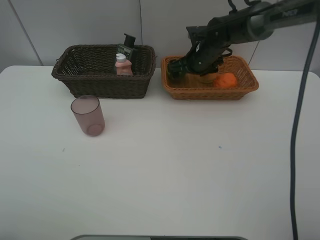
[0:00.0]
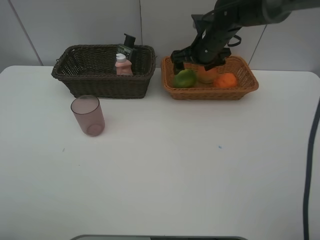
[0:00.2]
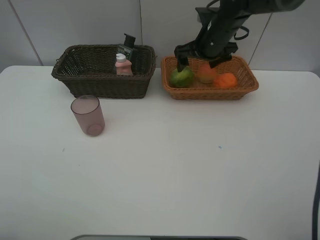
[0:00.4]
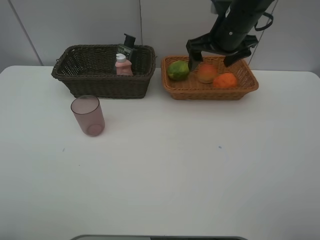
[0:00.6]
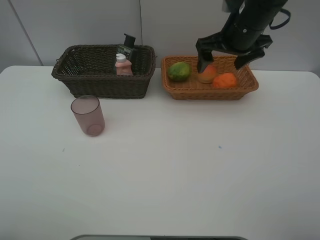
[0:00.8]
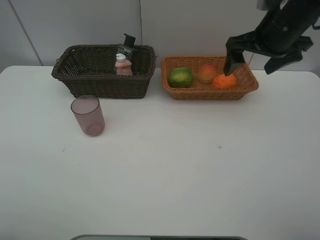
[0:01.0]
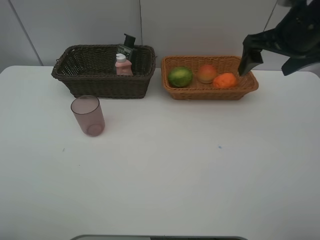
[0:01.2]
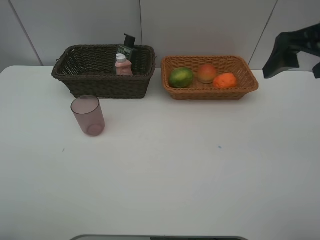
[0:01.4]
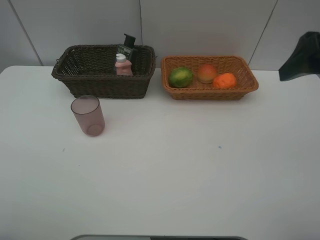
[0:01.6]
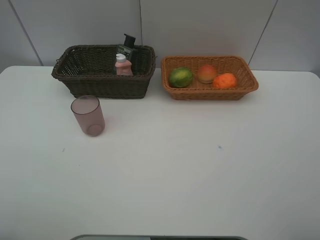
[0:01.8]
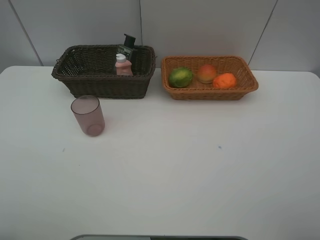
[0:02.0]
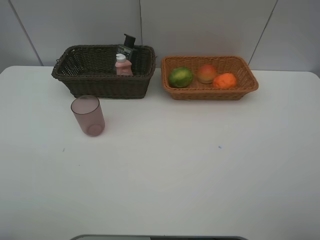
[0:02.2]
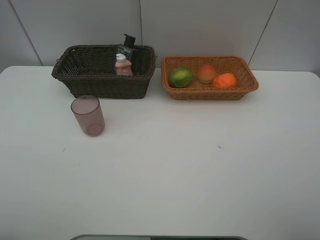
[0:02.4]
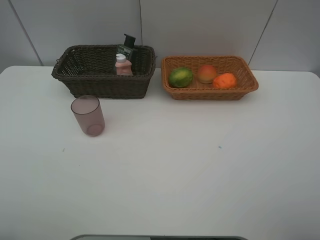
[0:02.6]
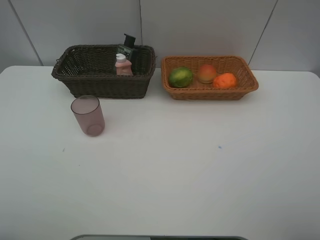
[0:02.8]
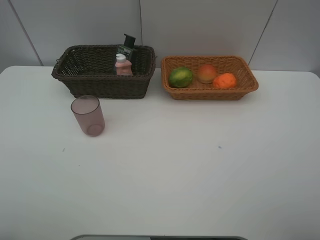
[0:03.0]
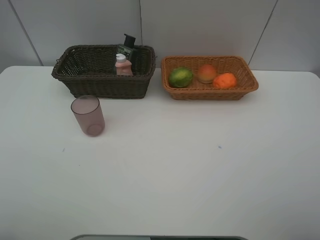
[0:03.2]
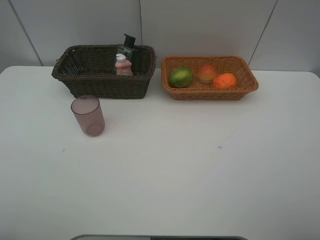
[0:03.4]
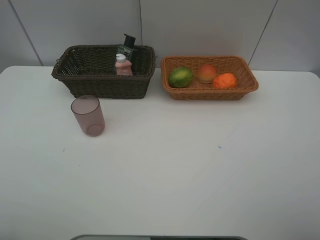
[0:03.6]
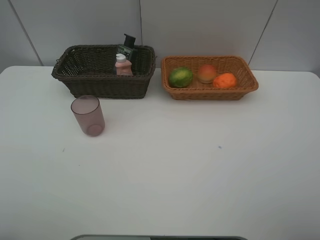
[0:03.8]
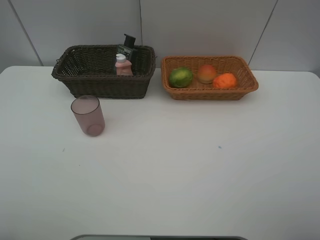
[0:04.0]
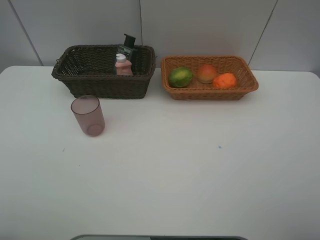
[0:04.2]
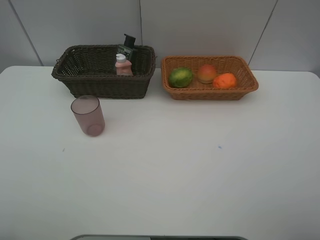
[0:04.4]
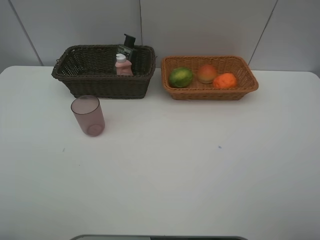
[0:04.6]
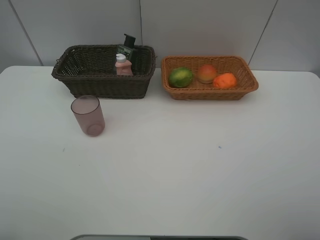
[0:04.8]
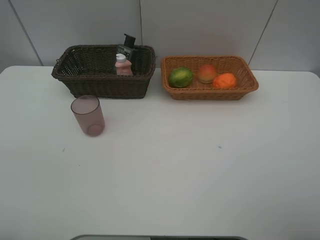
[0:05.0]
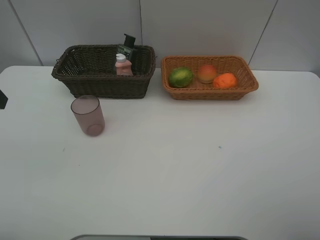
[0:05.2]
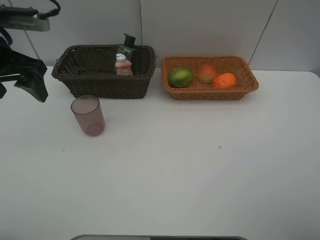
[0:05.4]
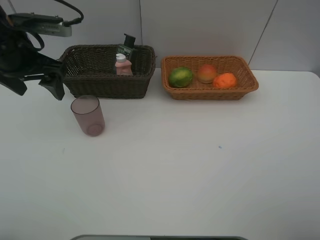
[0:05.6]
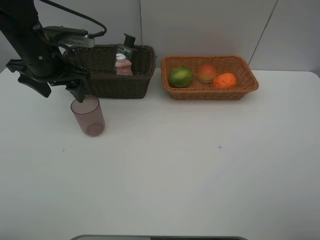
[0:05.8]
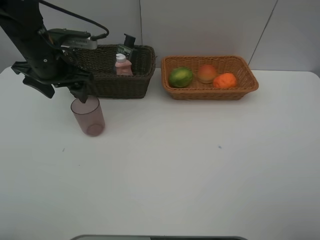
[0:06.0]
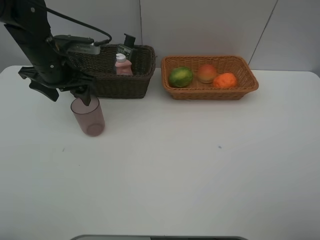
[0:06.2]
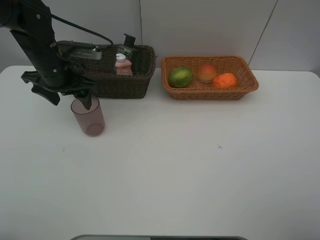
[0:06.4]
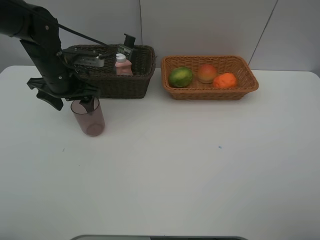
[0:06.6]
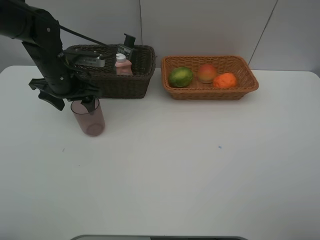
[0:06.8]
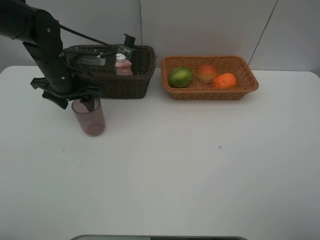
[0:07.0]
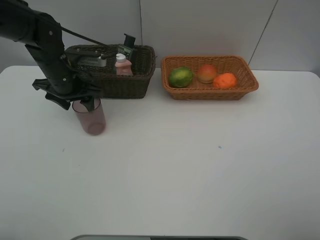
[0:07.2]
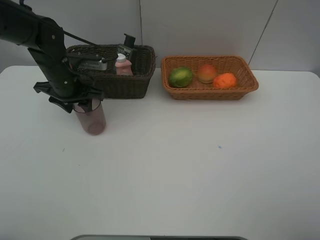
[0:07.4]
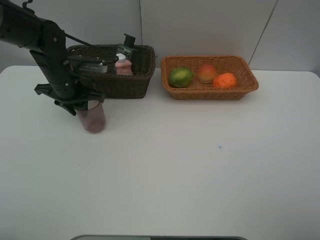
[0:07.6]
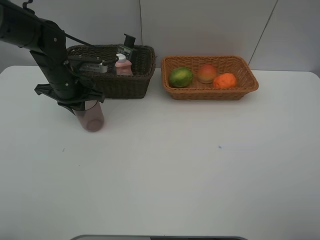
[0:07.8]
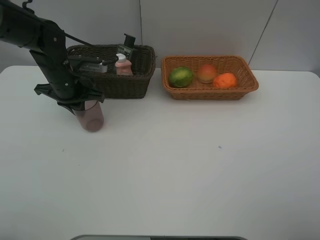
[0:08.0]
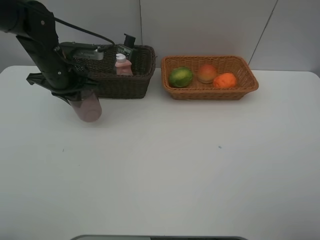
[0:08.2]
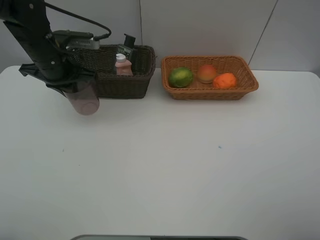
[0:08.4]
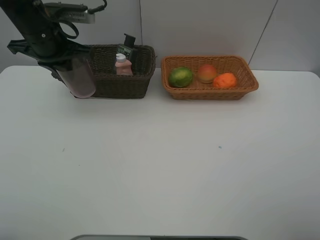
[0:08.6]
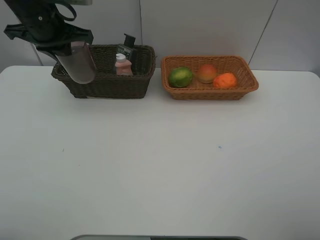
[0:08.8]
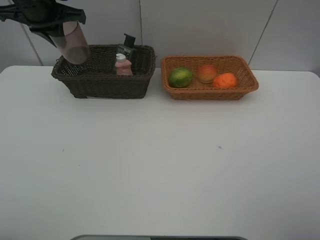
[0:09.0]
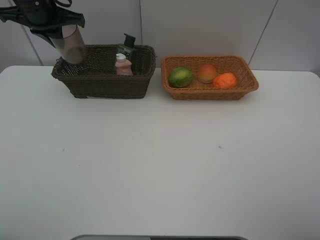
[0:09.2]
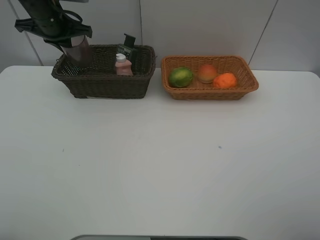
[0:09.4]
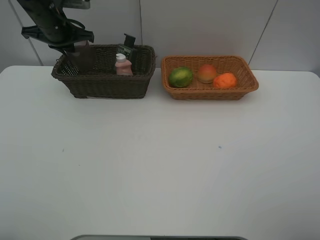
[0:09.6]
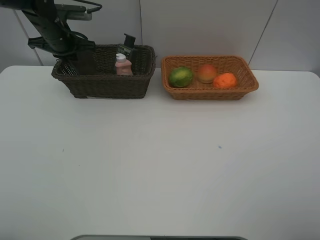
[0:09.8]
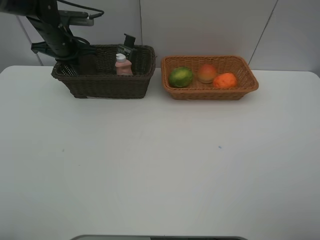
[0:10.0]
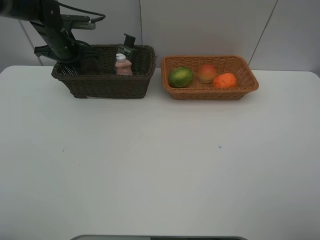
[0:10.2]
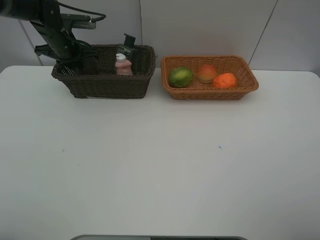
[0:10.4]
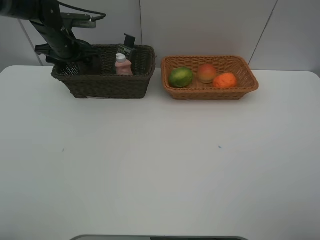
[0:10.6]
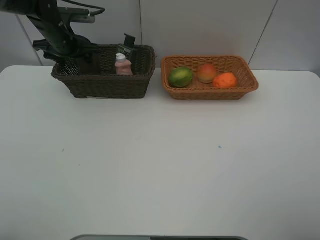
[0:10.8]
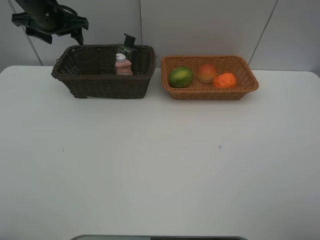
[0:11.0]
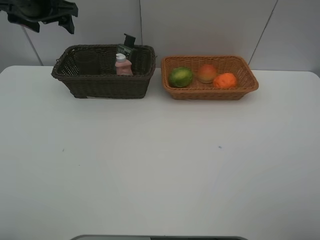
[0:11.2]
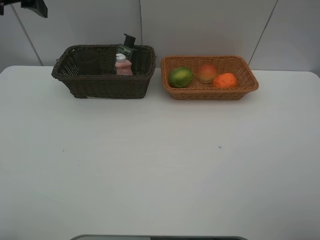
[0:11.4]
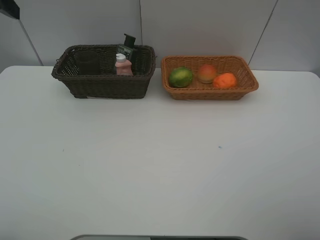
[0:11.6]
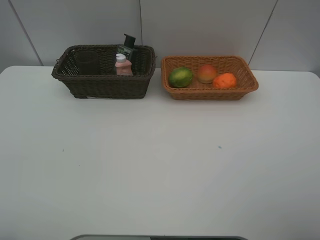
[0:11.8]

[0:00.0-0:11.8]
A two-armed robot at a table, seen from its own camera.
Task of the whole recording: place multiple objects separately in different baskets.
0:00.0 to 0:01.4: The right gripper shifts roughly 30 cm backward, upward and to the right.
0:01.4 to 0:03.0: The right gripper travels backward by approximately 25 cm.
0:04.4 to 0:06.0: The left gripper moves forward, about 35 cm.
0:06.0 to 0:07.4: The left gripper goes about 5 cm downward, and closes up.
0:07.4 to 0:08.8: The left gripper travels upward by some 15 cm, and closes its fingers.
0:08.8 to 0:10.4: The left gripper moves downward and forward, some 15 cm, and opens up.
0:10.4 to 0:11.8: The left gripper goes about 40 cm backward and upward, and opens its fingers.
